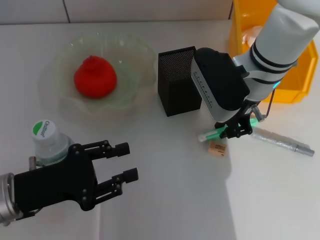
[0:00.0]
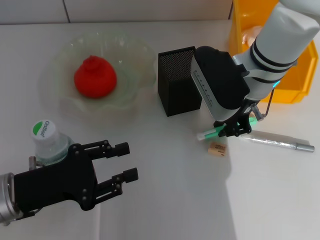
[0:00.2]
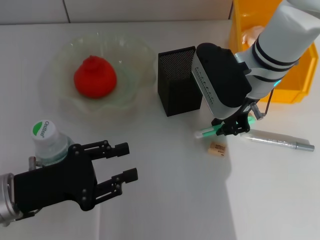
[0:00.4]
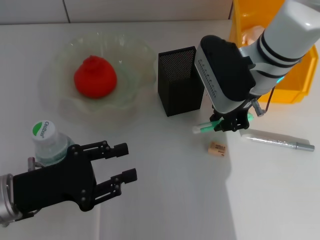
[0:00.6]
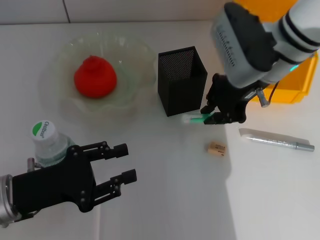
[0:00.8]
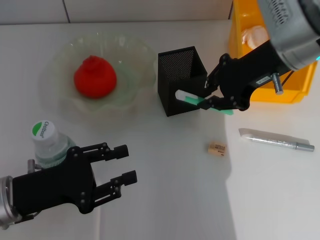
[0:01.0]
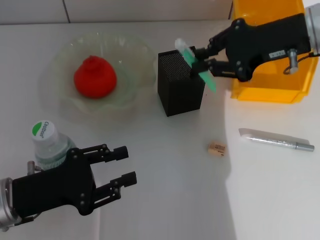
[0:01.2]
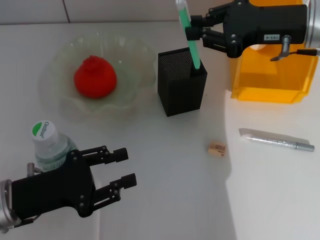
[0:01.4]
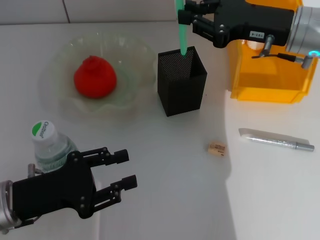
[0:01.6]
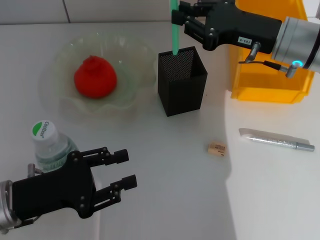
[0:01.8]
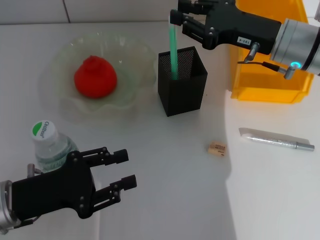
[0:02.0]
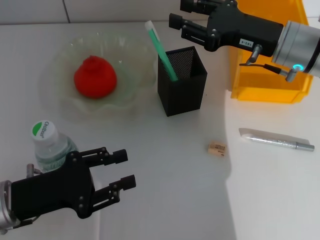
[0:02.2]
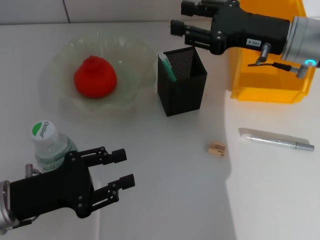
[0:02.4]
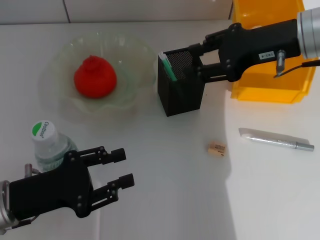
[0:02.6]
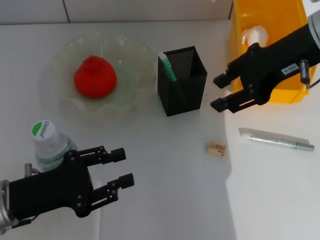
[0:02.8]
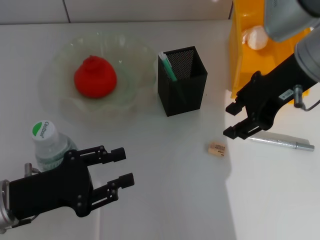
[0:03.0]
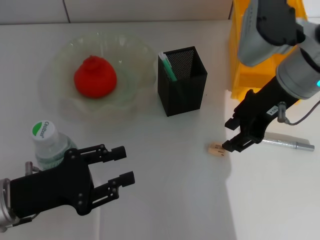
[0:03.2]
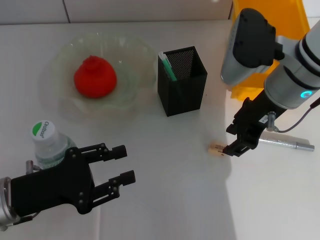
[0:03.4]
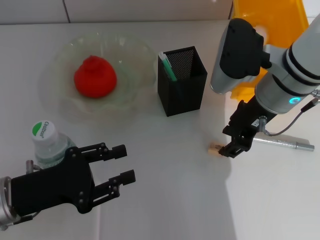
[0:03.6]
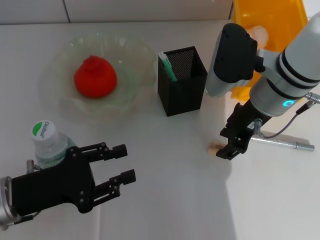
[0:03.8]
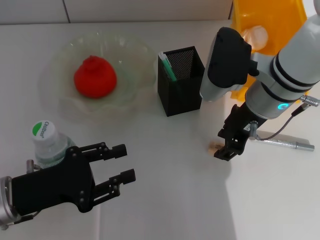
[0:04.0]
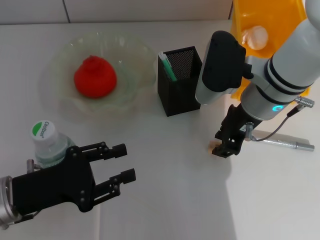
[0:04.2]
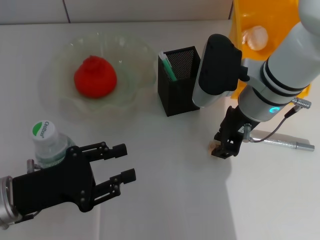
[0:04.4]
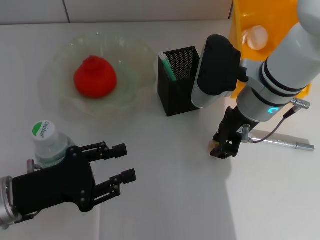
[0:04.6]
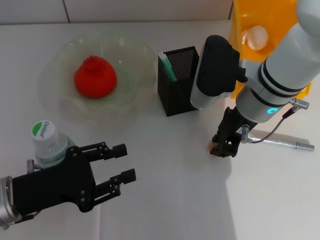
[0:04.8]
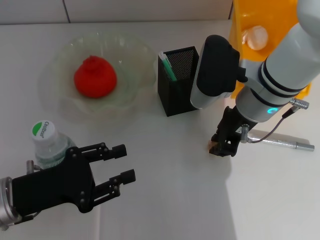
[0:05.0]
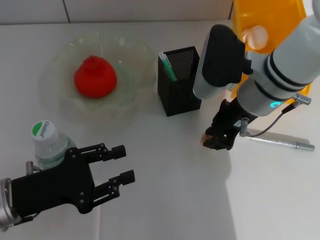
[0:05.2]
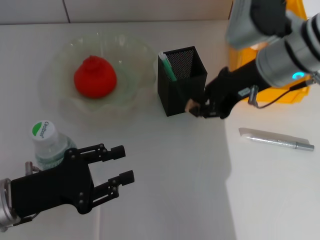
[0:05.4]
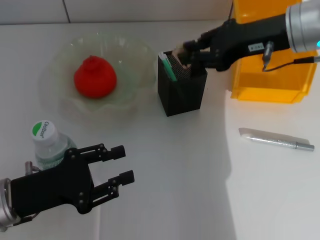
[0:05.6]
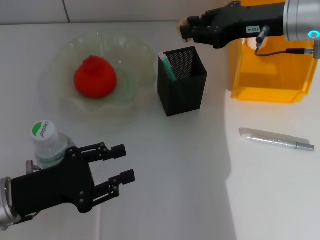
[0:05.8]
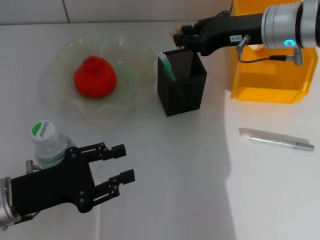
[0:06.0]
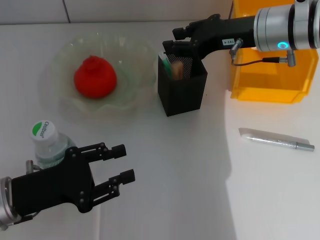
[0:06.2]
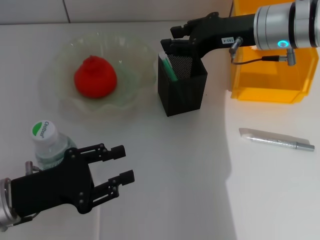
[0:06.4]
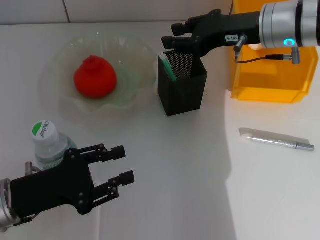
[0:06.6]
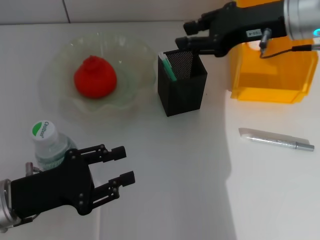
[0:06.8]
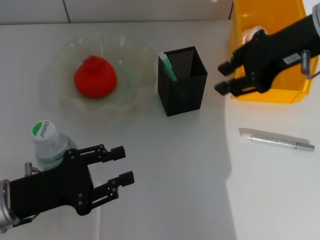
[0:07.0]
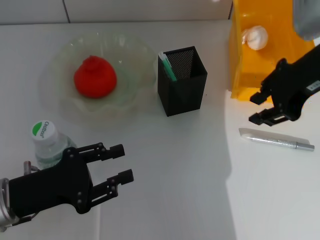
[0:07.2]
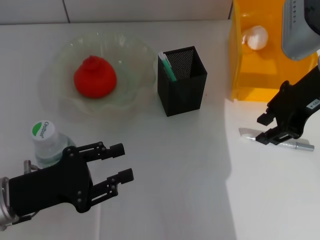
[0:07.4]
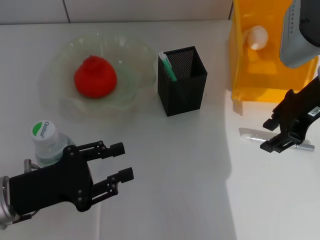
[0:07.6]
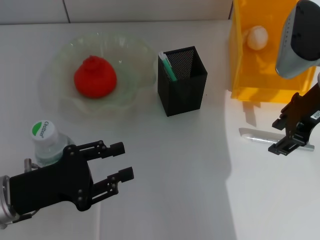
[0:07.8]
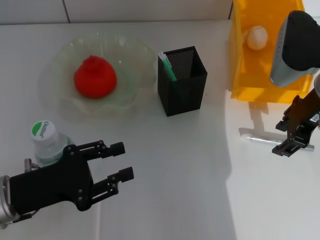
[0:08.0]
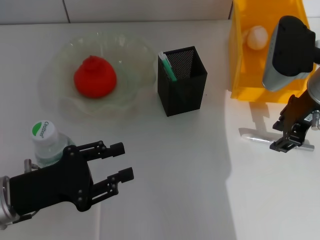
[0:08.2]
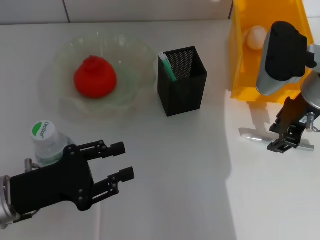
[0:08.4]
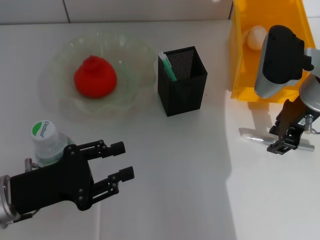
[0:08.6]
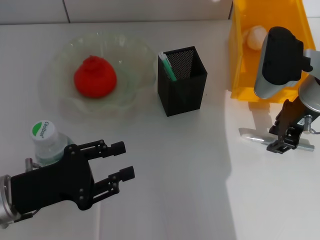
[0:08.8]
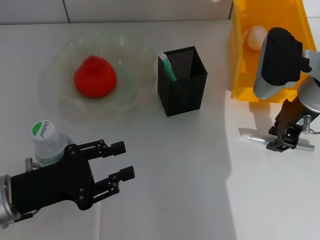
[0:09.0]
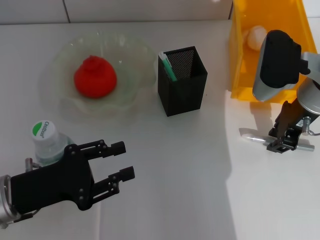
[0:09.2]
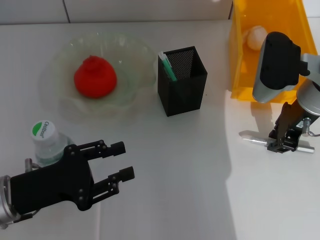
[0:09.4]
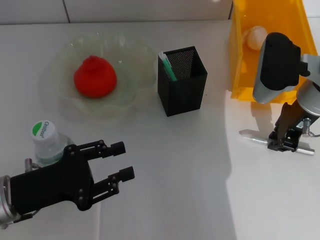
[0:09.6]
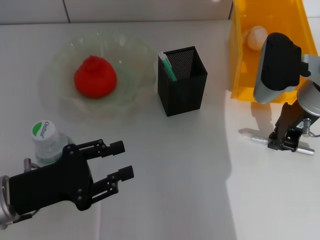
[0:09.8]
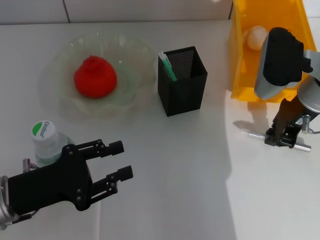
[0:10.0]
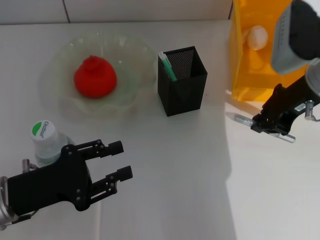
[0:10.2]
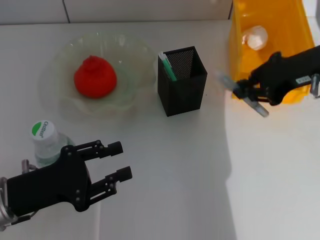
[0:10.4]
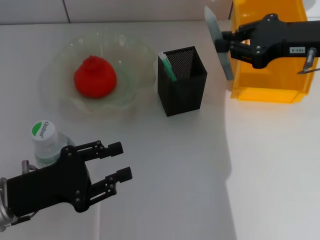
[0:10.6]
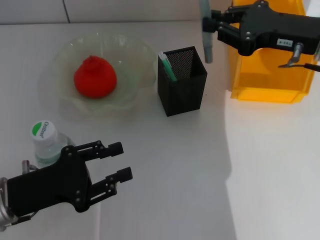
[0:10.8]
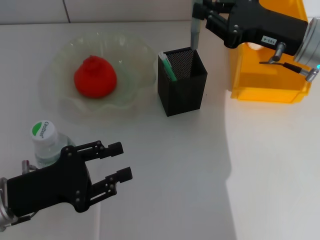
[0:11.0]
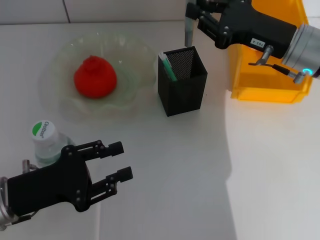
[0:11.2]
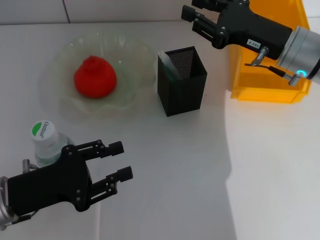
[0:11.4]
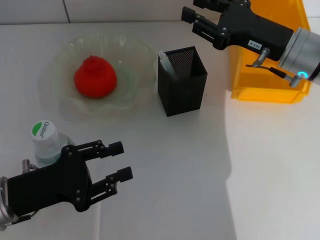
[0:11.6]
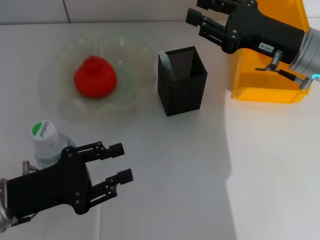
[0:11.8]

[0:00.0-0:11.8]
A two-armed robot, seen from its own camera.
Step, 0:00.2 to 0:02.4: Place the blue utility knife into the pen holder with the right hand.
Step, 0:02.6 to 0:04.8: Grab the eraser with the right hand.
Step, 0:05.0 to 0:06.8: Put the eraser into the pen holder with the right hand.
Step, 0:07.0 to 0:09.6: Grab the gray glue with the right hand.
Step, 0:09.8 to 0:11.6: Place the gray glue into the pen holder with the right hand.
0:00.0 to 0:01.4: The right gripper shifts about 10 cm to the right and upward.
0:01.4 to 0:03.0: The right gripper moves some 5 cm downward and comes back, and opens up.
0:03.0 to 0:04.4: The right gripper heads downward and to the left, covering some 10 cm.
0:04.4 to 0:06.0: The right gripper heads to the right, covering roughly 5 cm.
0:06.0 to 0:07.4: The right gripper moves backward, about 5 cm.
0:07.4 to 0:08.8: The right gripper shifts some 5 cm downward.
0:08.8 to 0:10.4: The right gripper travels upward by some 5 cm, and closes up.
0:10.4 to 0:11.8: The right gripper shifts about 5 cm downward, and opens up.

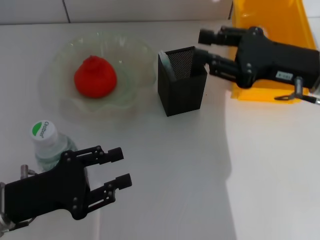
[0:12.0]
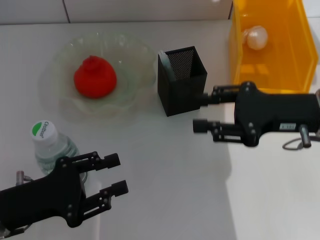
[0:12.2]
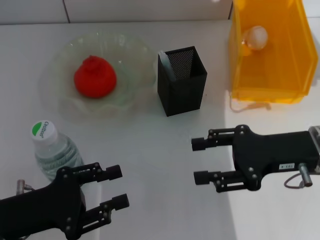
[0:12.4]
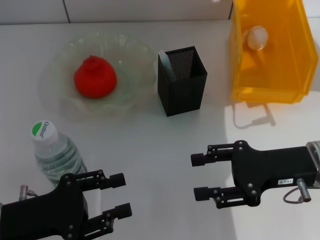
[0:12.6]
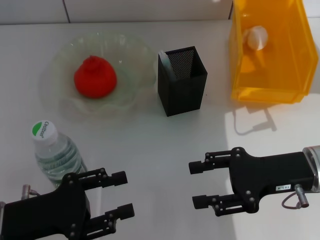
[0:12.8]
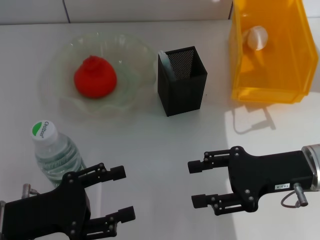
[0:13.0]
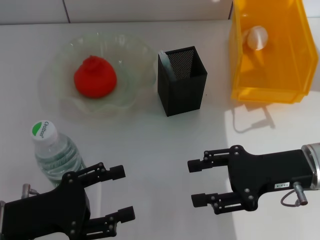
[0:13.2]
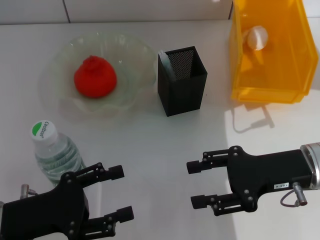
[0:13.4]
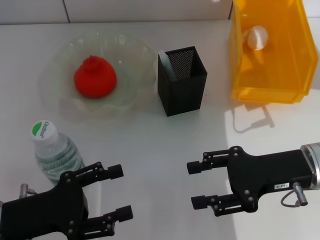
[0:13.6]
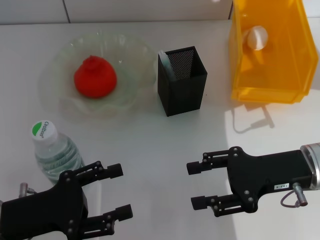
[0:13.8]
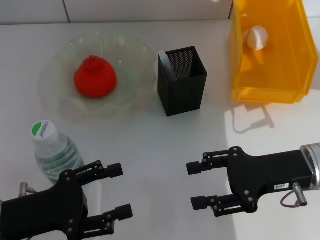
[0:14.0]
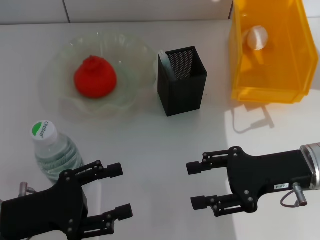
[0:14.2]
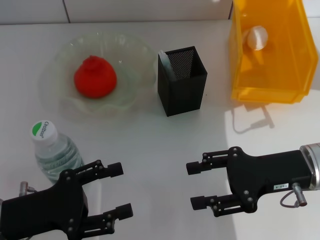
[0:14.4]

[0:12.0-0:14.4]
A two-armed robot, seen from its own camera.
0:12.0 to 0:13.2: The right gripper heads backward and downward, covering roughly 10 cm.
0:13.2 to 0:14.4: Both grippers stay about where they are.
